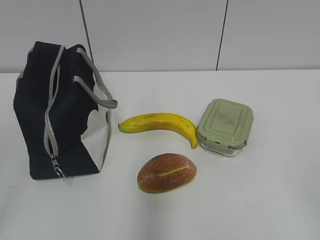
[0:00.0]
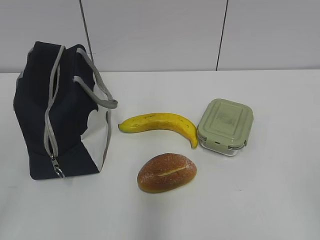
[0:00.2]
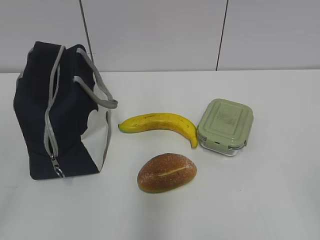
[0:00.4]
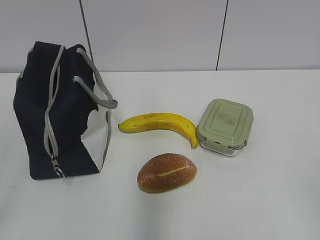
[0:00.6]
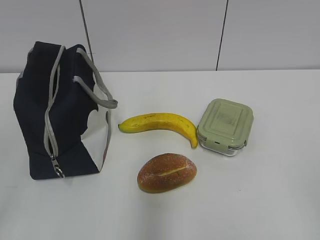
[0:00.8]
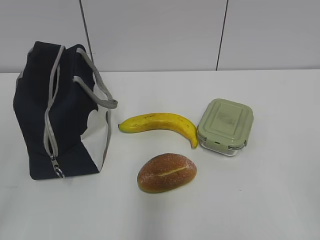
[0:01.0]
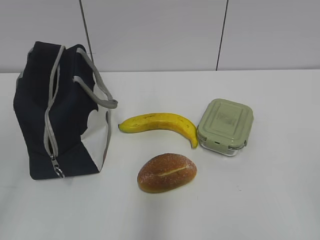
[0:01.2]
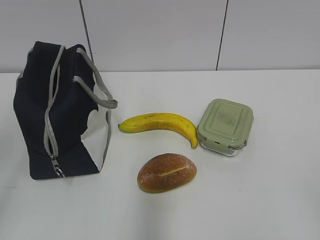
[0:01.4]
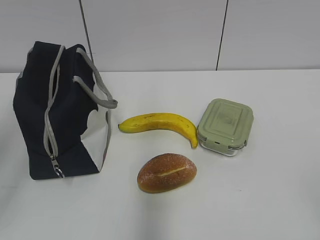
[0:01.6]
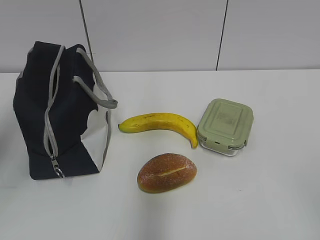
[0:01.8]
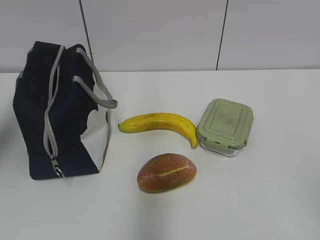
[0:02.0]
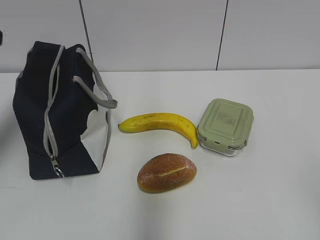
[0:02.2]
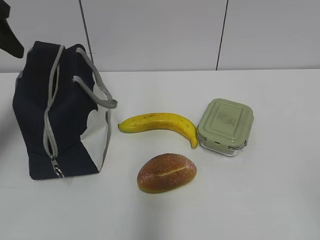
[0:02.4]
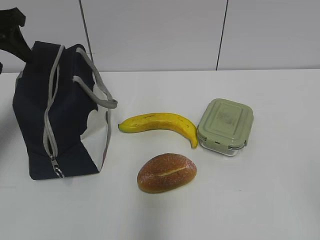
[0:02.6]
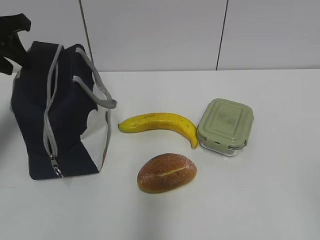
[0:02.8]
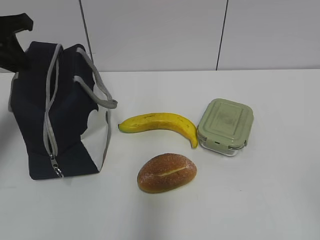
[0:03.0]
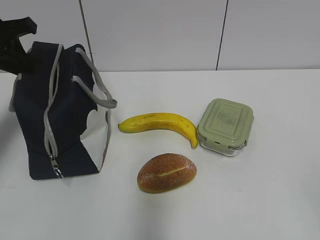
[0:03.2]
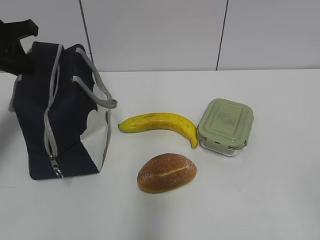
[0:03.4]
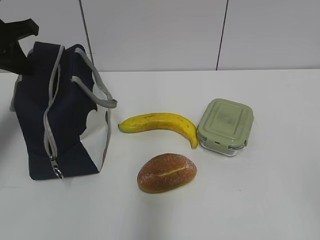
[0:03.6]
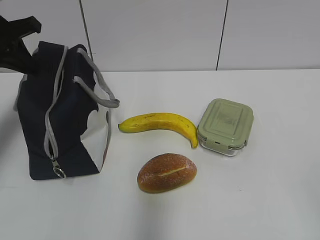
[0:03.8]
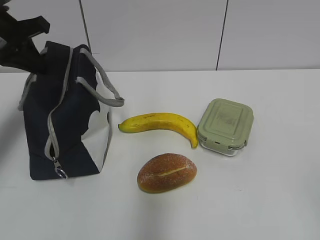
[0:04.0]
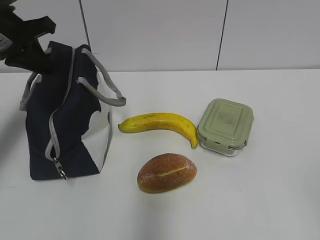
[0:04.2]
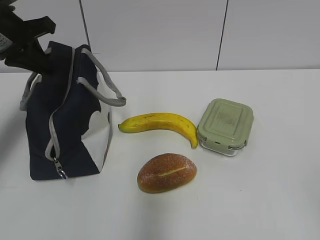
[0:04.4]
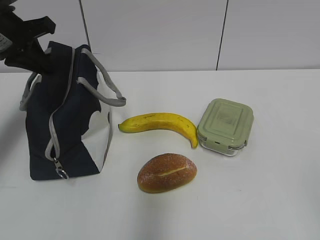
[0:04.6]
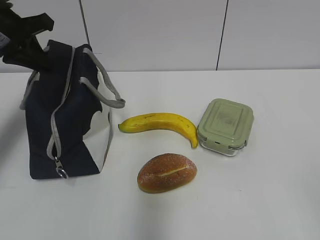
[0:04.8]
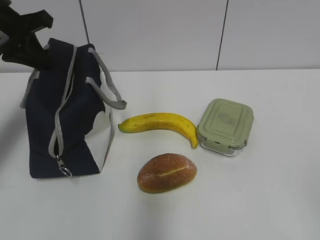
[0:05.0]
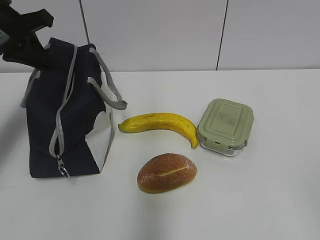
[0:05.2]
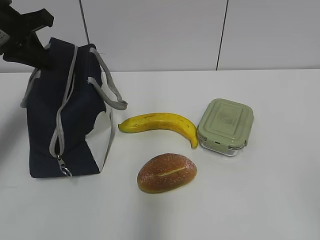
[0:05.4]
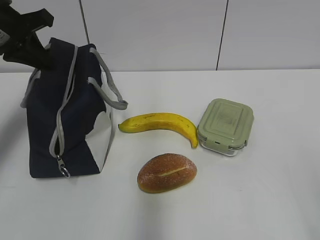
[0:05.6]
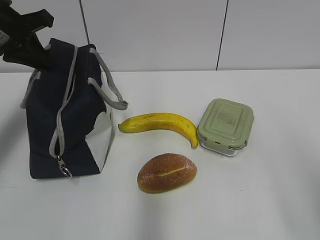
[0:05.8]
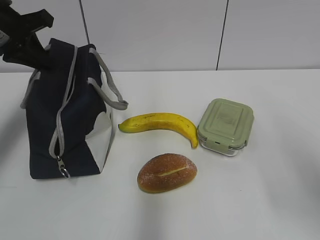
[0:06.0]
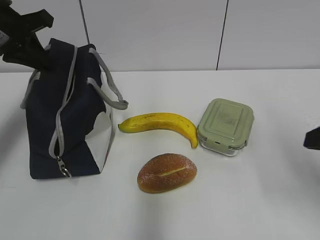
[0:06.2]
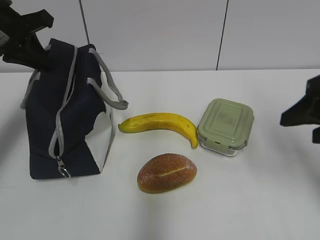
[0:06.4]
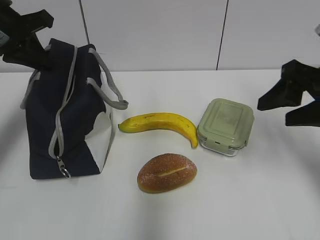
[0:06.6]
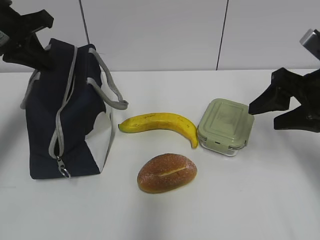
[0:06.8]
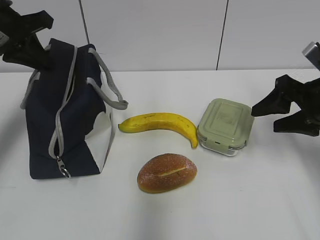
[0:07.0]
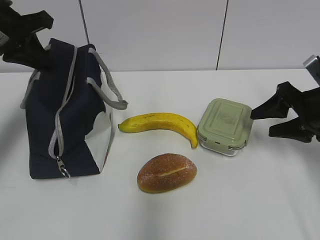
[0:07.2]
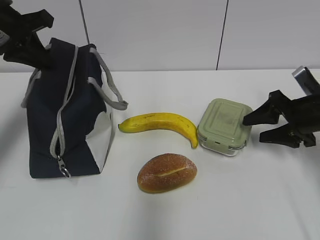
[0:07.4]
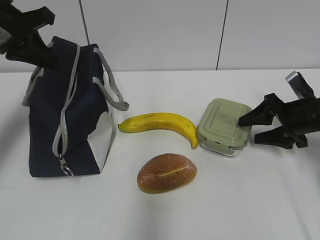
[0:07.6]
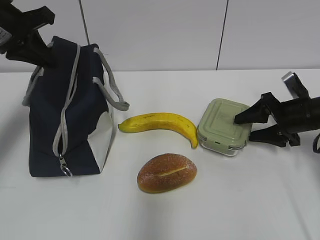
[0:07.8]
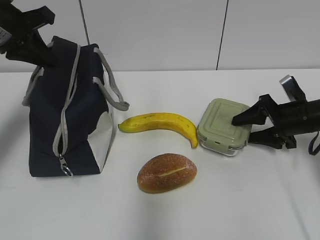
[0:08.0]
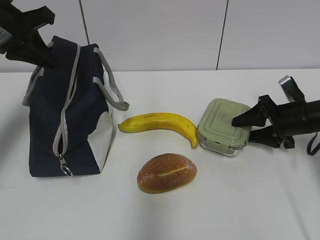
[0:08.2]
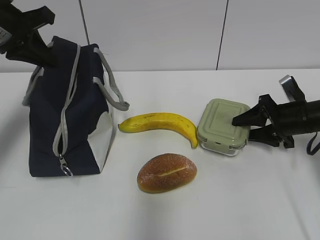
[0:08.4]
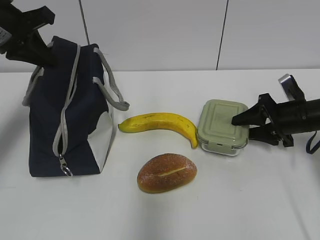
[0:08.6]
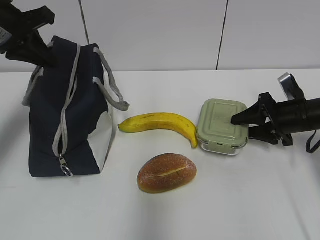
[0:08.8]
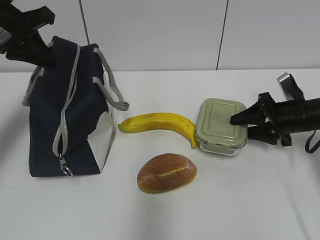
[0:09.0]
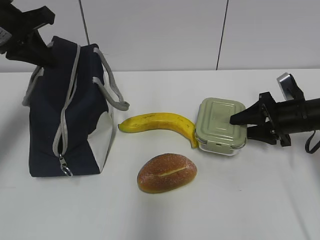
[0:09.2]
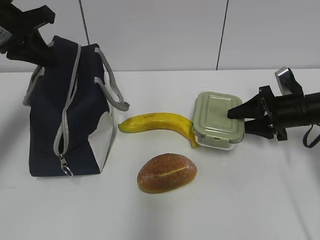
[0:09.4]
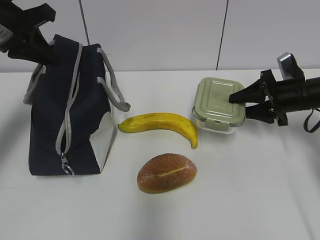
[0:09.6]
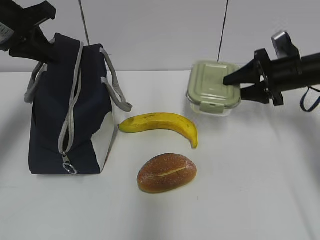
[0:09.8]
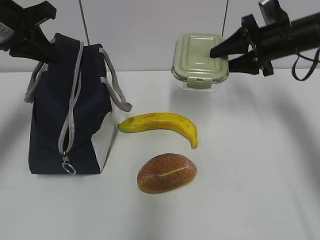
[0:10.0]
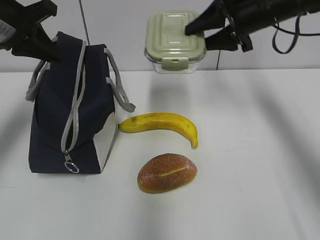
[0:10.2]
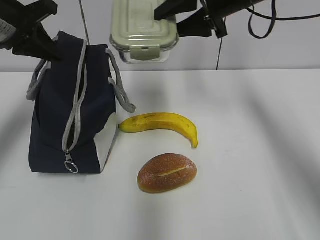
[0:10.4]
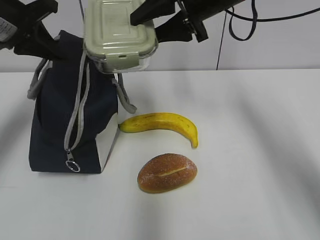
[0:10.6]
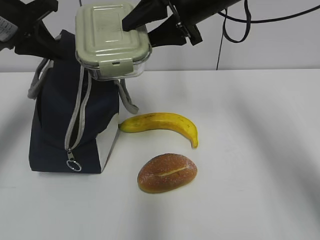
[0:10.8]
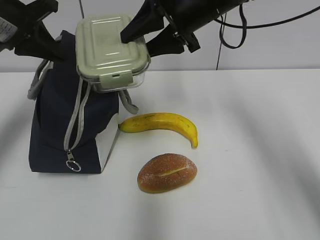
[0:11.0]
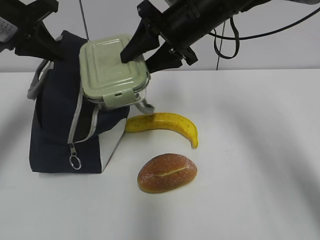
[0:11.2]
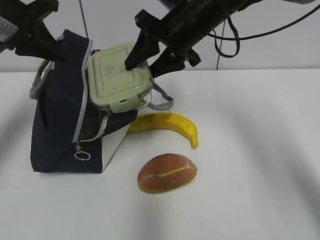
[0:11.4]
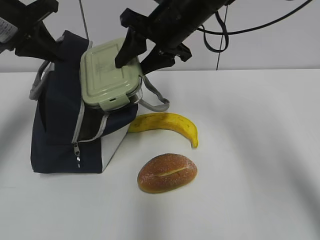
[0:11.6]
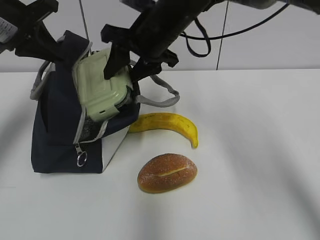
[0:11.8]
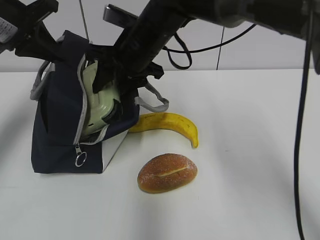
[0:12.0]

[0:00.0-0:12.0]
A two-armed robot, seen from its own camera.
0:01.6 to 0:03.0: The left gripper is displaced forward by roughly 30 cm, and closes up.
0:03.0 to 0:04.4: The grippers move only a little.
0:04.4 to 0:06.0: The right gripper heads forward, covering some 10 cm.
0:06.0 to 0:07.6: The right gripper moves forward and downward, roughly 30 cm.
0:07.6 to 0:09.0: The grippers move only a little.
0:09.0 to 0:10.4: The right gripper heads upward and to the left, covering approximately 25 cm.
0:10.4 to 0:12.0: The right gripper shifts some 15 cm to the left and downward.

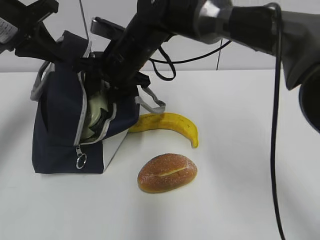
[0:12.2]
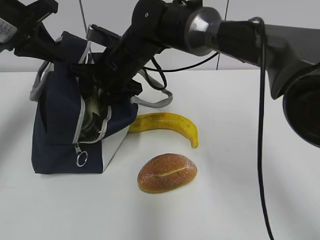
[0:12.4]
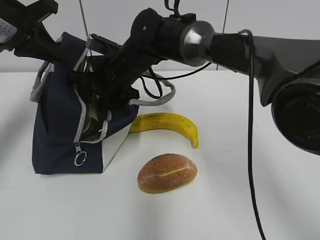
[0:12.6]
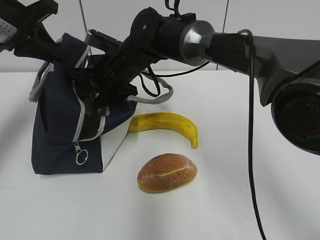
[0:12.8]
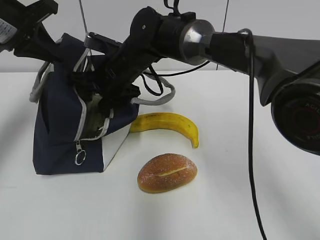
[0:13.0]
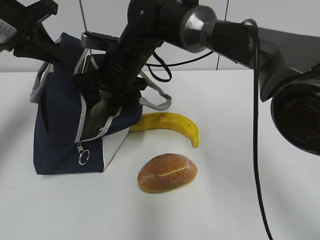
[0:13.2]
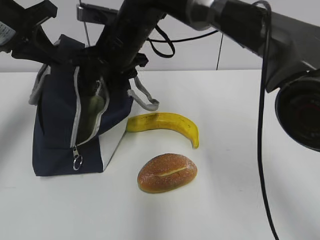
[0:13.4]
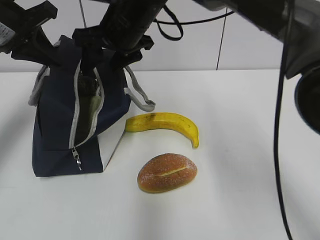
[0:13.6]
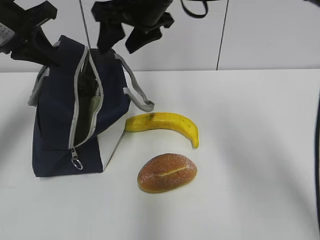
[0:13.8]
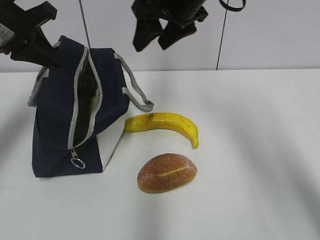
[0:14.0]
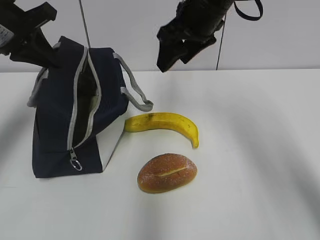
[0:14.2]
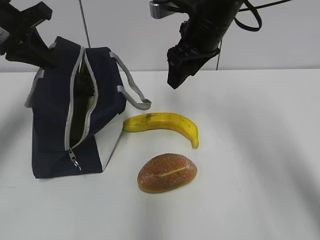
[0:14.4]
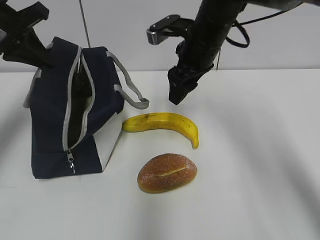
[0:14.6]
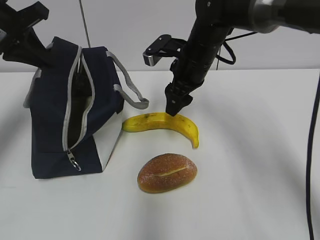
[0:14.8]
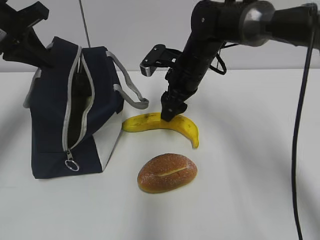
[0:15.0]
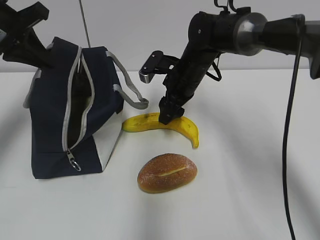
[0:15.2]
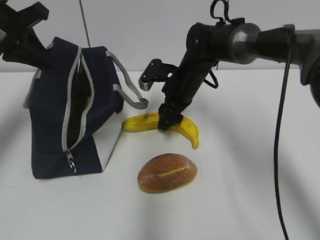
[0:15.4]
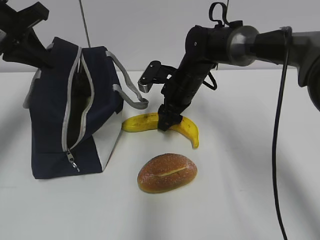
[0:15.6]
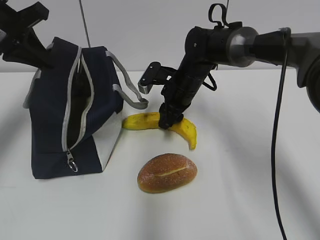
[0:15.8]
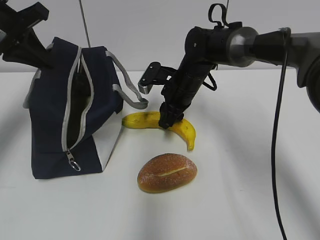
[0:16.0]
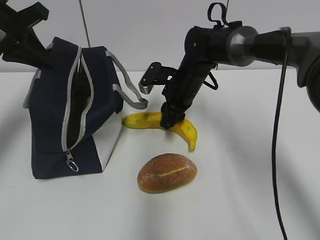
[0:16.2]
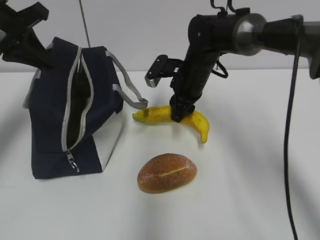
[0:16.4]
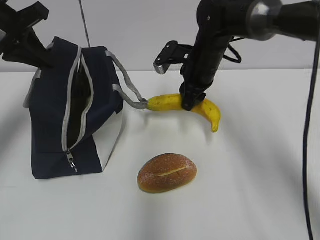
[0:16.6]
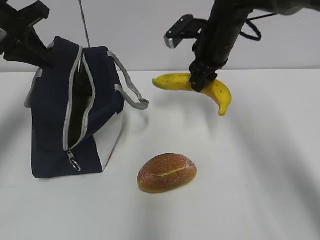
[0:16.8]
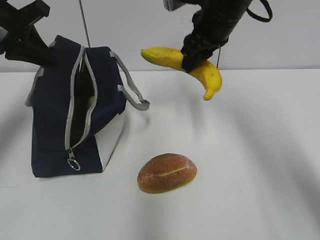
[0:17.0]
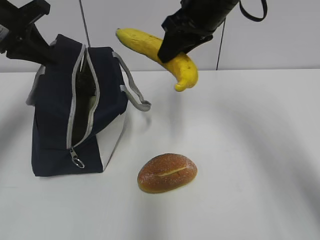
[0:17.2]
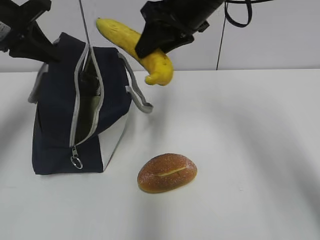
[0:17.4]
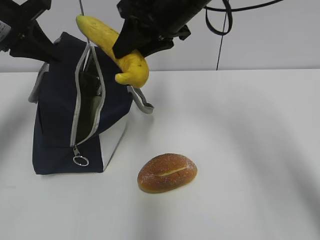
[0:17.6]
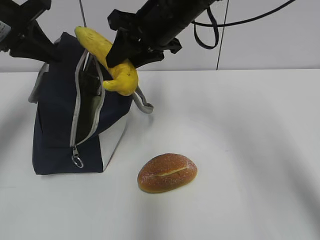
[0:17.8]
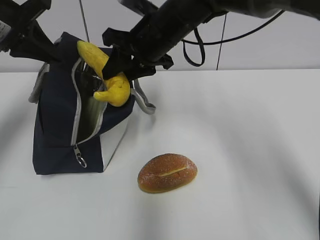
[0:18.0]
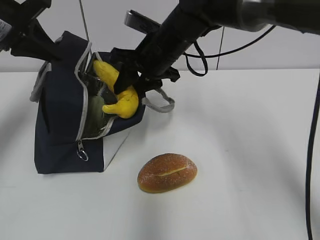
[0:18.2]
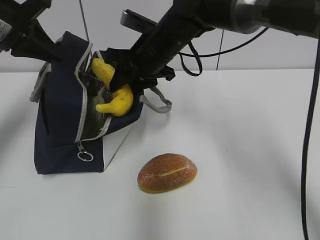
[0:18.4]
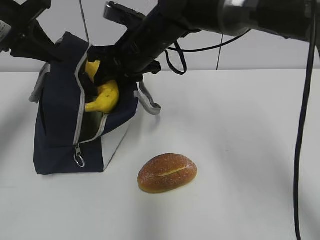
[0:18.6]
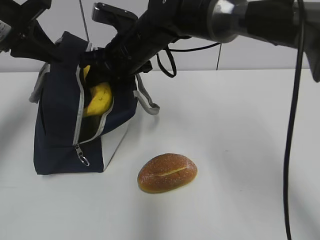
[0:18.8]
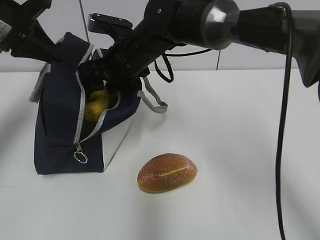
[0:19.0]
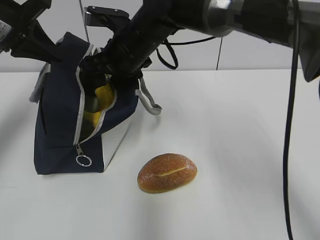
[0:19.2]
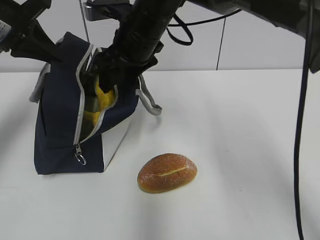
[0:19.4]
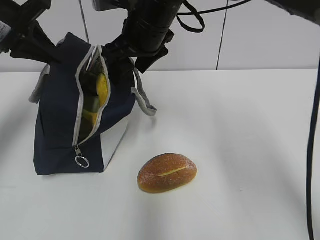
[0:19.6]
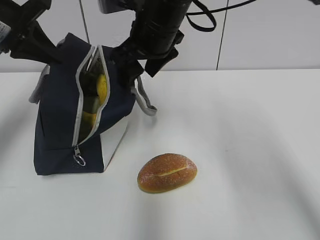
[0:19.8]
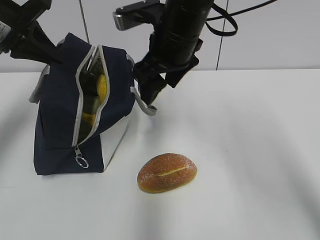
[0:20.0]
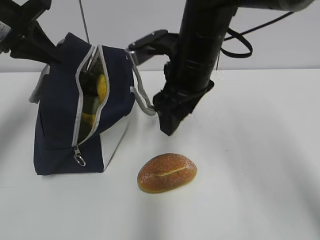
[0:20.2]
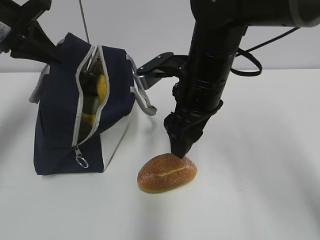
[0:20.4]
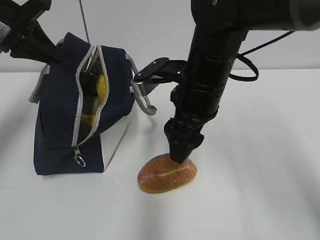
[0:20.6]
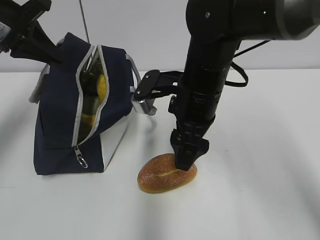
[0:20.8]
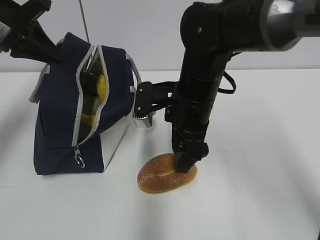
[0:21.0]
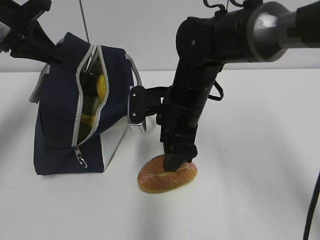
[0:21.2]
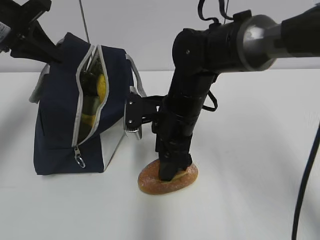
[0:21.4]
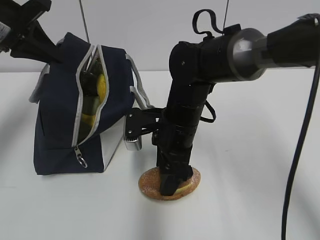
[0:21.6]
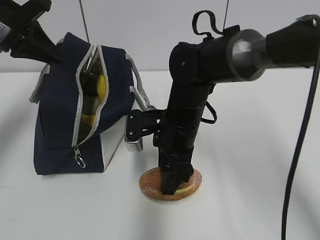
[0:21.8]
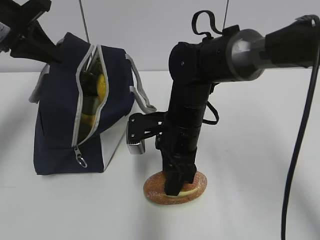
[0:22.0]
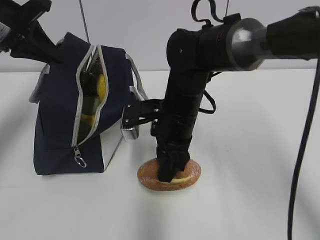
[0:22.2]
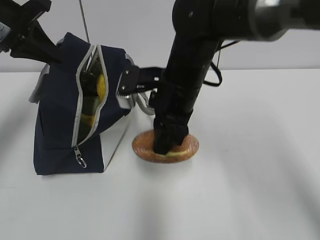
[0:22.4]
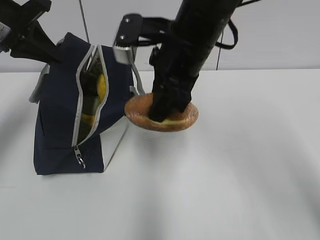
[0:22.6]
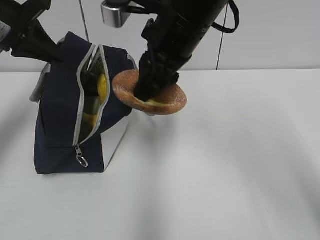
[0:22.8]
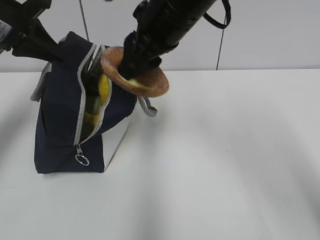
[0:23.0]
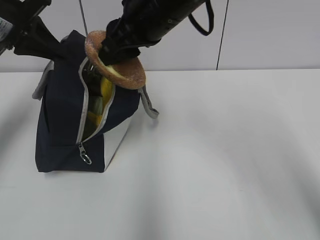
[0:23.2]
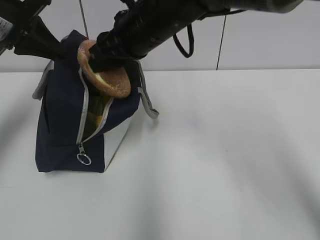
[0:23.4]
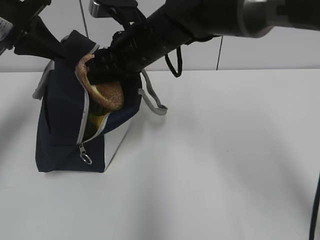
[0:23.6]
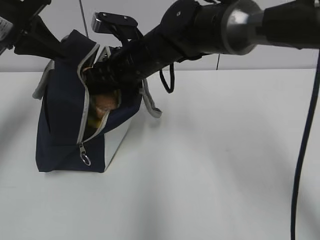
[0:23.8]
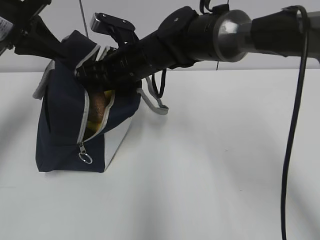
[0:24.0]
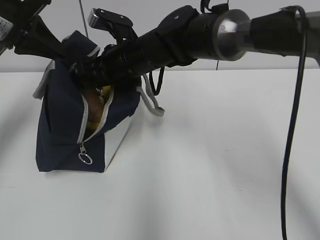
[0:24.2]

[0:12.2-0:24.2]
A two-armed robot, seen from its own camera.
0:12.2 to 0:13.8: The right gripper moves upward, roughly 10 cm.
0:13.8 to 0:15.2: The right gripper is displaced downward and to the right by some 15 cm.
0:15.2 to 0:16.6: The right gripper closes its fingers.
0:16.6 to 0:18.2: The right gripper heads to the left, covering approximately 10 cm, and reaches about 15 cm upward, then returns.
0:18.2 to 0:19.8: The right gripper moves upward, some 5 cm, and opens up.
0:19.8 to 0:21.2: The right gripper moves downward and backward, roughly 10 cm.
0:21.2 to 0:22.6: The right gripper shifts some 10 cm upward, and closes its fingers.
0:22.6 to 0:24.2: The right gripper shifts approximately 15 cm forward, to the left and downward, and opens.
